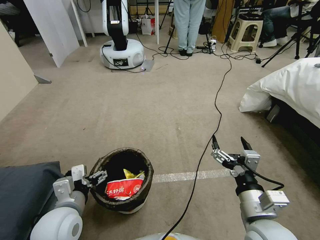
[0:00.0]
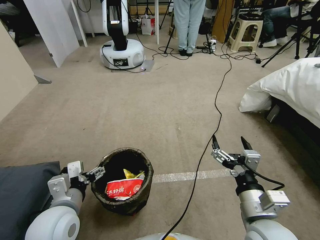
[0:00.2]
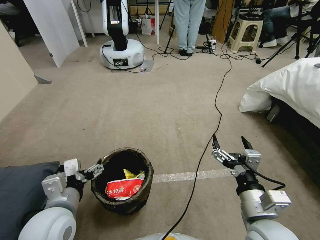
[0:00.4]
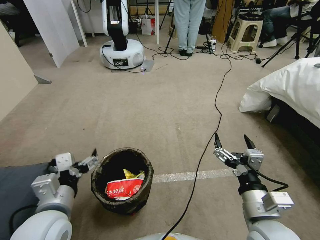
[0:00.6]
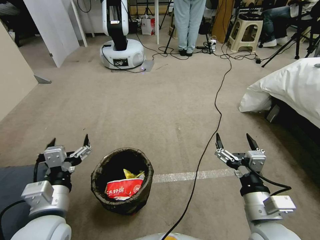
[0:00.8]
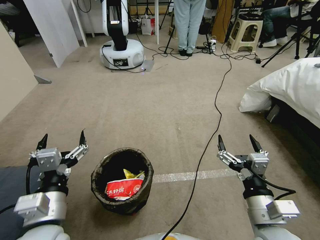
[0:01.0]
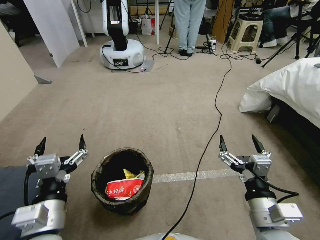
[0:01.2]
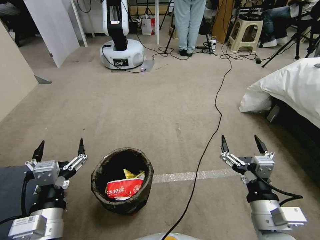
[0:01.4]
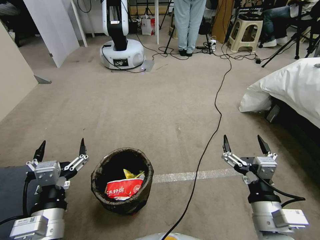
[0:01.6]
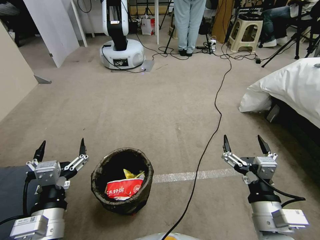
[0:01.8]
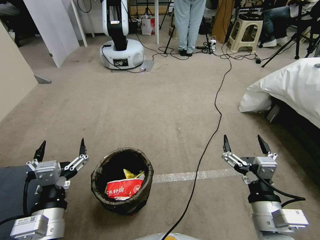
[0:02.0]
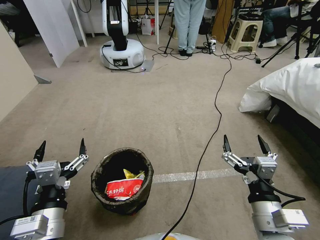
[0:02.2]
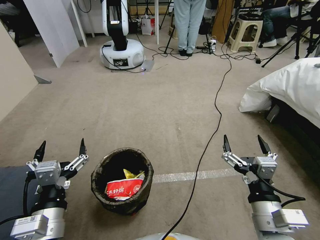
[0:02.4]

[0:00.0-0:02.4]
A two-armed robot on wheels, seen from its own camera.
Task of the whole recording: Pick up the trash bin, then pick up the garbage from the floor and place it into the trash bin.
0:00.0 to 0:01.2: The left gripper is displaced backward by approximately 5 cm.
0:01.2 to 0:02.4: There are only small adjustments of the grippers.

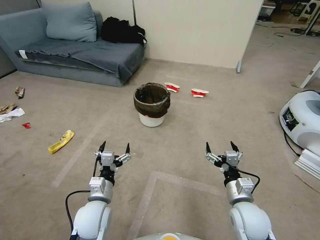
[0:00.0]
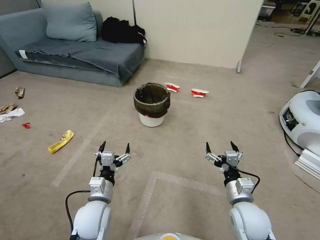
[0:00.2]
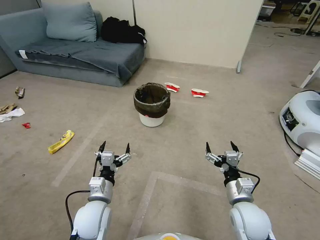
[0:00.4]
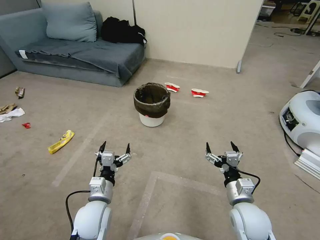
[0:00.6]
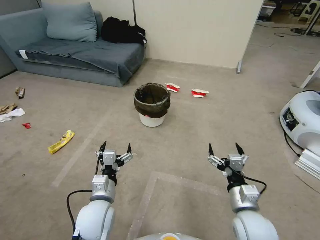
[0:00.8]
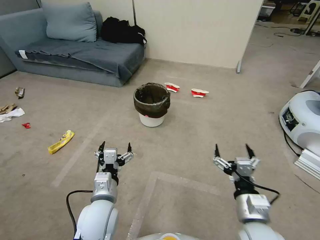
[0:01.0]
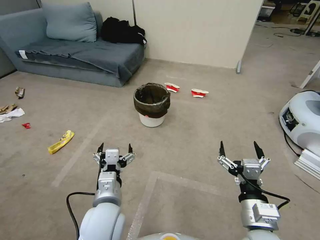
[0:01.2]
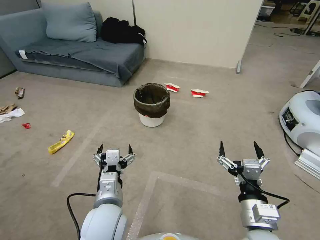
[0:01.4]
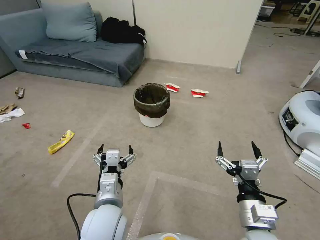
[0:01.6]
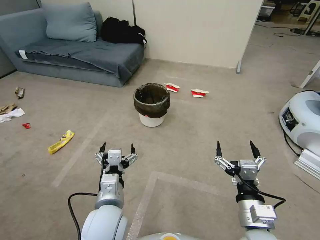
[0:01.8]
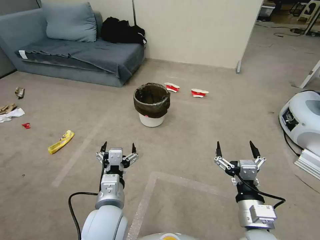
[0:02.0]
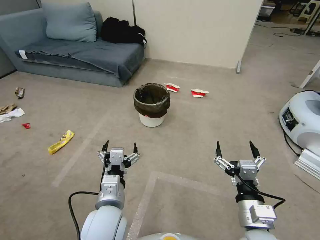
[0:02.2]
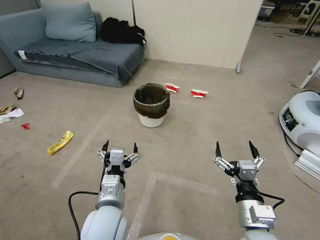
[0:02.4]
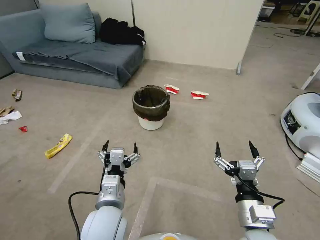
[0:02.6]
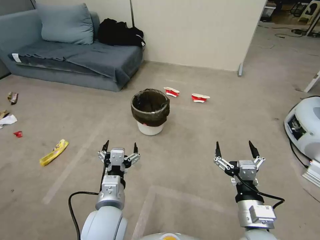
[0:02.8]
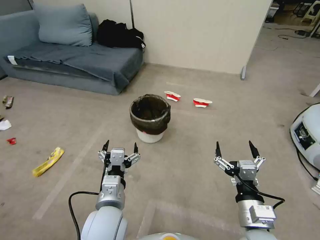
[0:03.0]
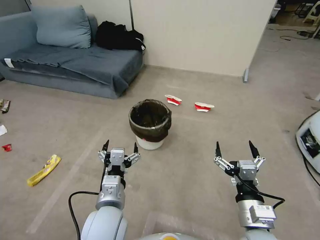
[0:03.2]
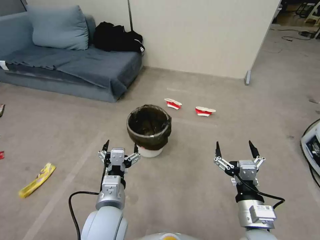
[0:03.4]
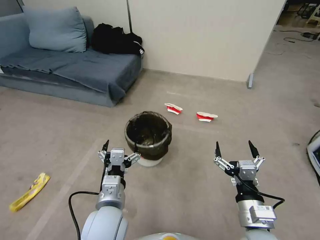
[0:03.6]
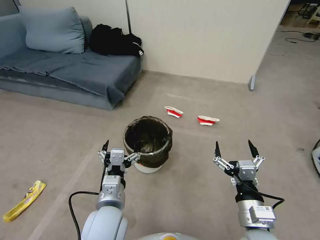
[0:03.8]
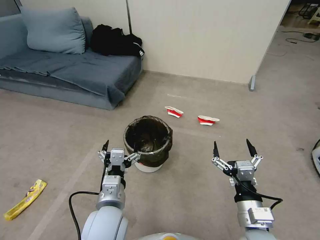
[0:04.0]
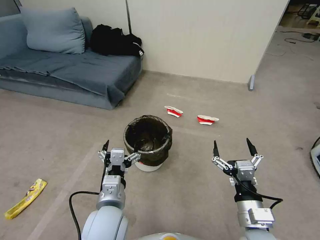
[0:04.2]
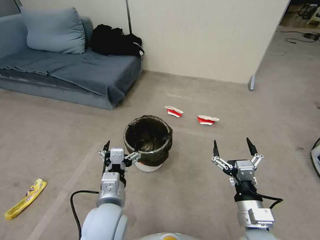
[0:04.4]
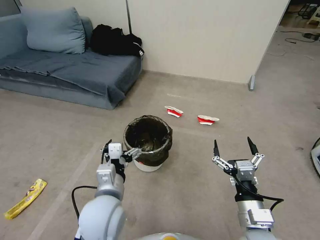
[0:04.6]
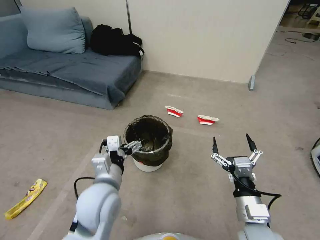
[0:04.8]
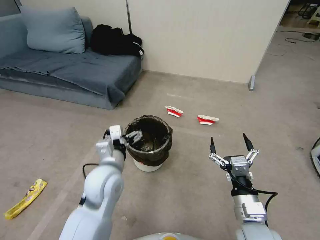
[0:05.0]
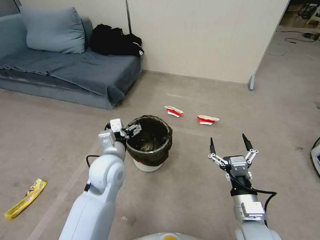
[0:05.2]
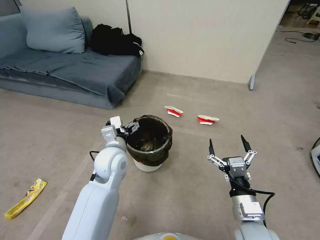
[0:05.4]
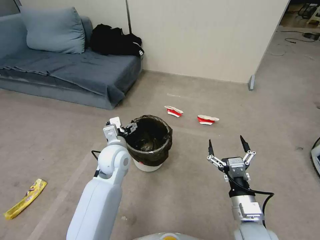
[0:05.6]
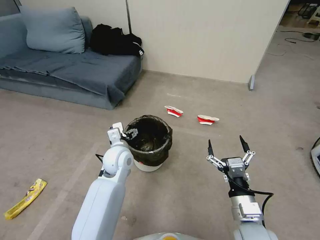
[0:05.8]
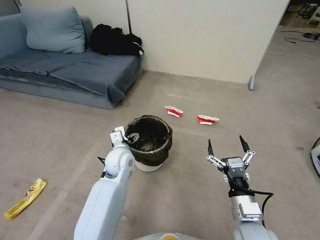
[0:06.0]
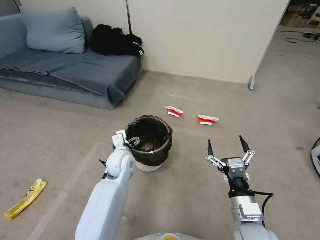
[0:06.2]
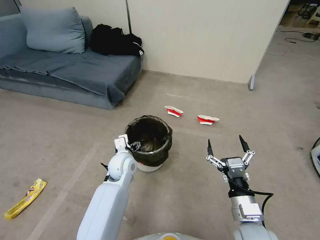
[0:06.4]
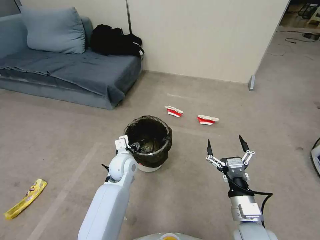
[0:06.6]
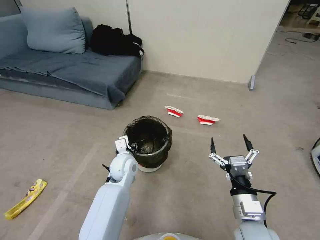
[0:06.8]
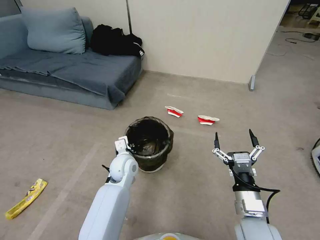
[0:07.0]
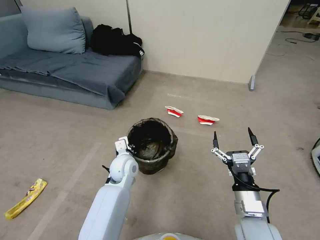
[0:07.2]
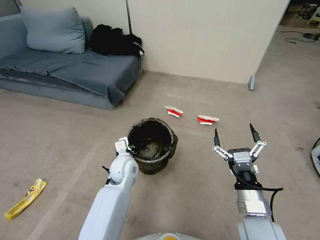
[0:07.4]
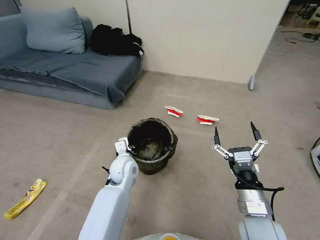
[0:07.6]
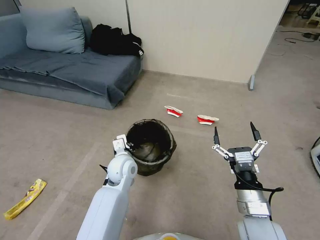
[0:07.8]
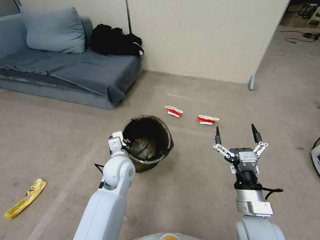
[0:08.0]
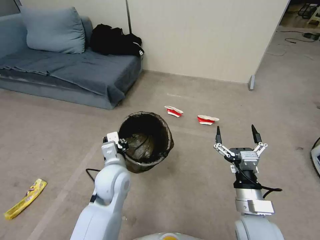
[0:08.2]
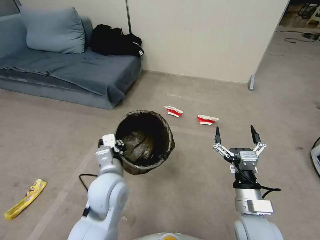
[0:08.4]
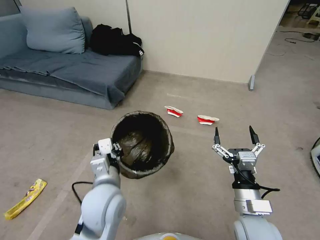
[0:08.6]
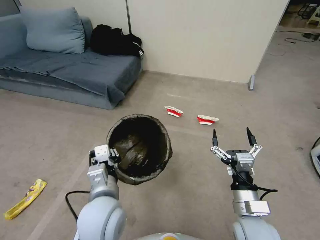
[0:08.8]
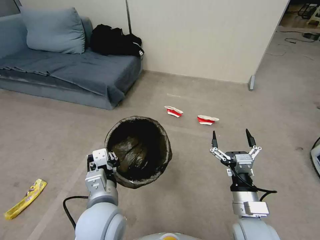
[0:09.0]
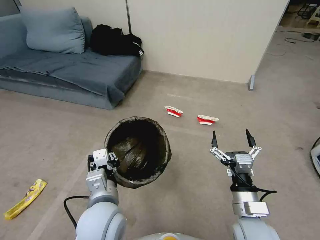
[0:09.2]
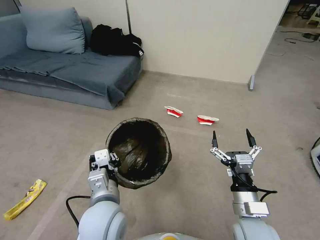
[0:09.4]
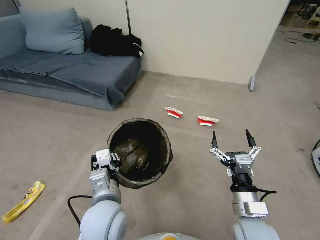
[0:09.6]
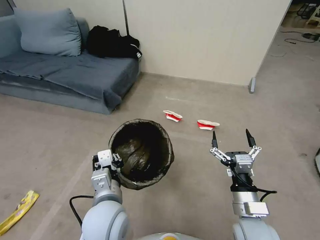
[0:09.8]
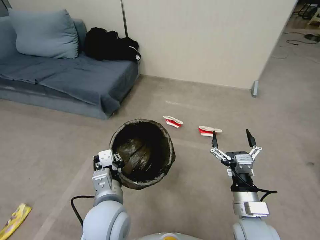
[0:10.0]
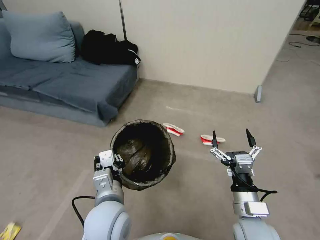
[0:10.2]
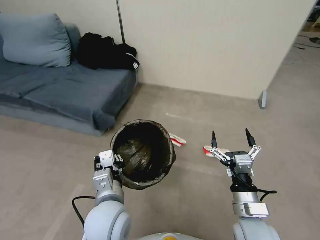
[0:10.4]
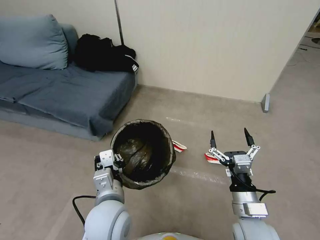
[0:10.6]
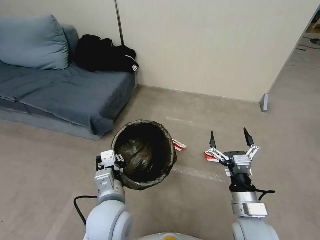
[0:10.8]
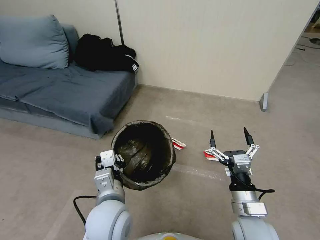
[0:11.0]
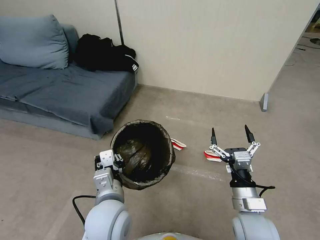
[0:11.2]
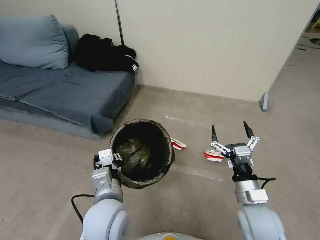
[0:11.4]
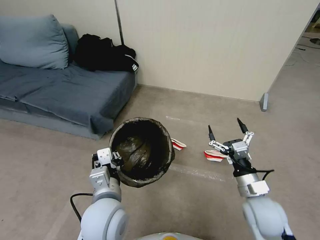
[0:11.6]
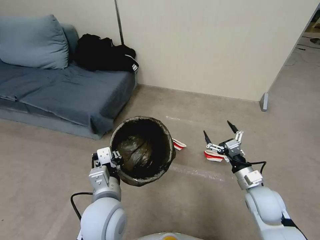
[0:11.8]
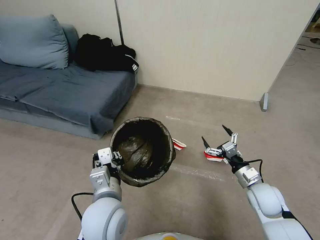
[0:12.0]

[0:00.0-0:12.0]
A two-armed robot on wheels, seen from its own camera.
Task of the whole recording: Pick up the trash bin, then pick up the garbage from the floor and place it into the trash bin.
0:01.6 to 0:03.0: There are only small adjustments of the grippers.
0:04.4 to 0:06.0: The left gripper moves forward, some 20 cm.
0:06.0 to 0:07.6: The left gripper closes.
0:07.6 to 0:09.0: The left gripper goes roughly 20 cm backward and upward.
0:10.4 to 0:12.0: The right gripper shifts some 15 cm forward, to the right and downward.

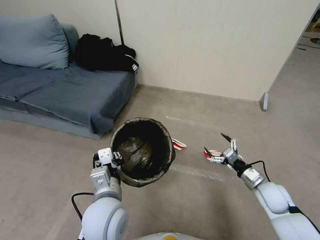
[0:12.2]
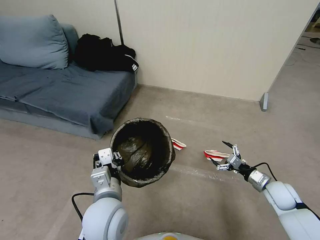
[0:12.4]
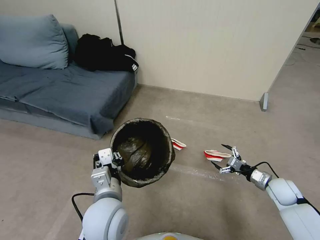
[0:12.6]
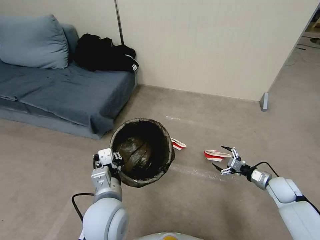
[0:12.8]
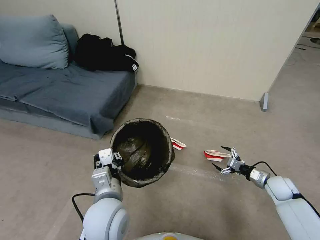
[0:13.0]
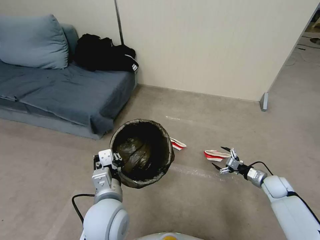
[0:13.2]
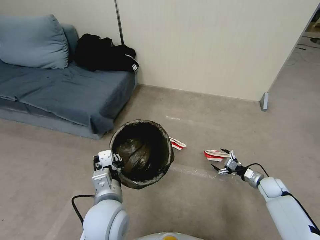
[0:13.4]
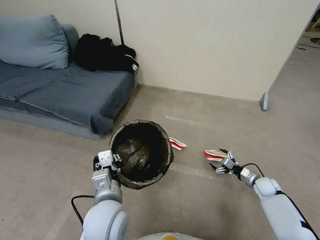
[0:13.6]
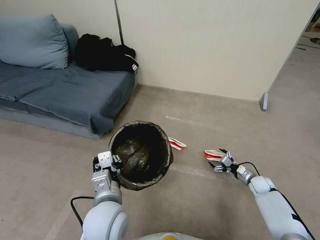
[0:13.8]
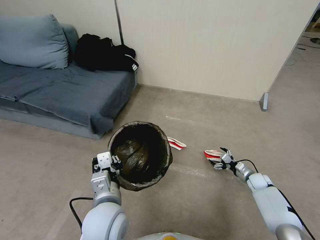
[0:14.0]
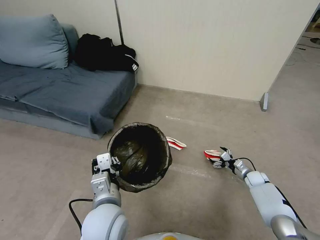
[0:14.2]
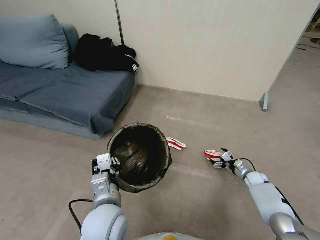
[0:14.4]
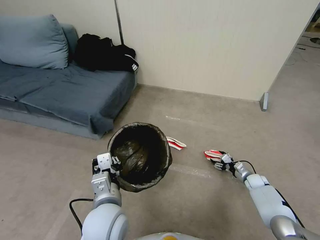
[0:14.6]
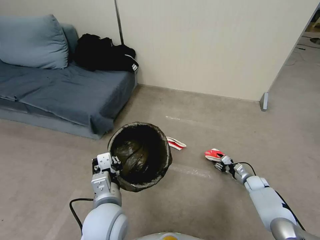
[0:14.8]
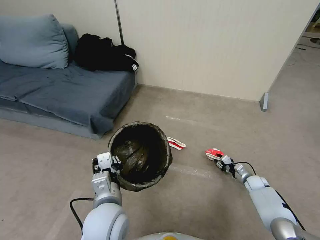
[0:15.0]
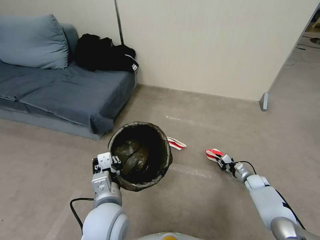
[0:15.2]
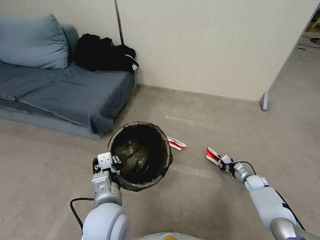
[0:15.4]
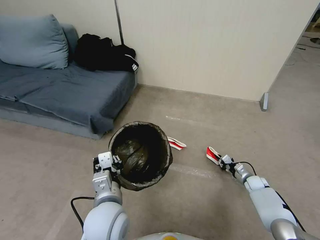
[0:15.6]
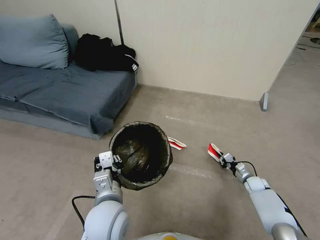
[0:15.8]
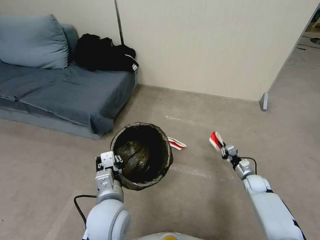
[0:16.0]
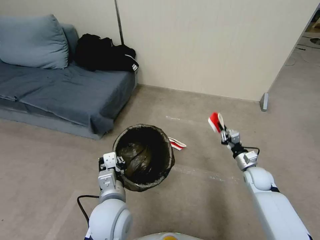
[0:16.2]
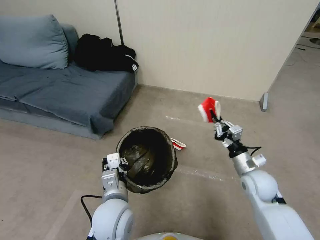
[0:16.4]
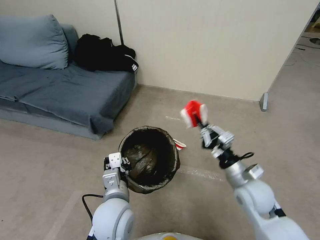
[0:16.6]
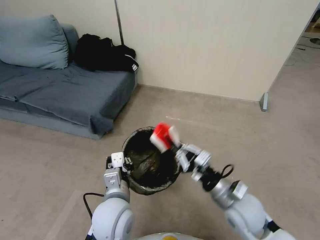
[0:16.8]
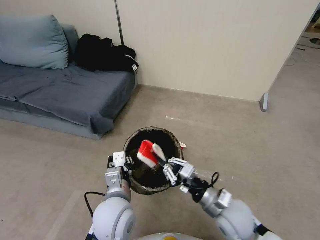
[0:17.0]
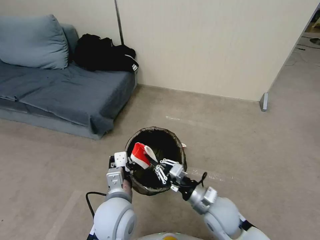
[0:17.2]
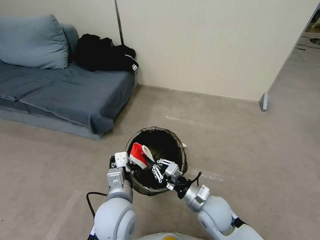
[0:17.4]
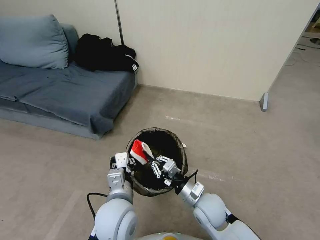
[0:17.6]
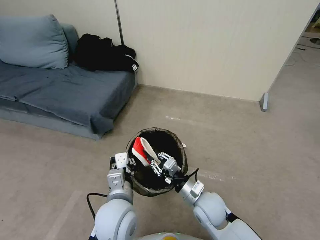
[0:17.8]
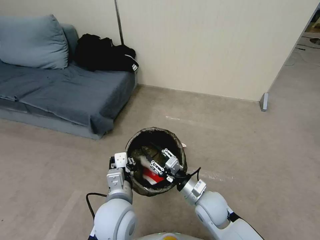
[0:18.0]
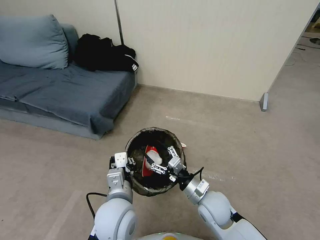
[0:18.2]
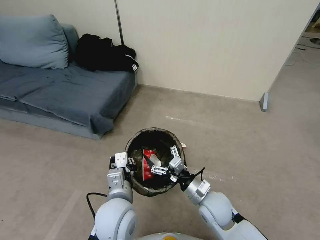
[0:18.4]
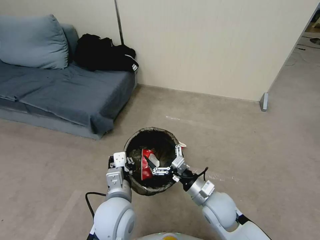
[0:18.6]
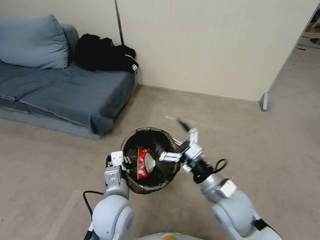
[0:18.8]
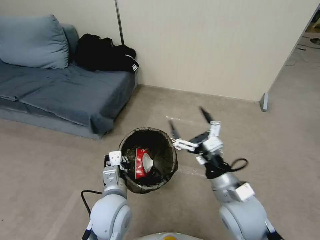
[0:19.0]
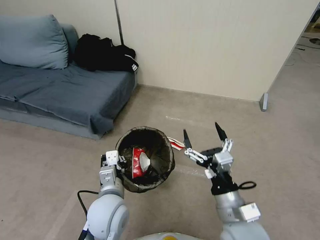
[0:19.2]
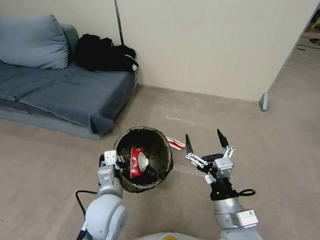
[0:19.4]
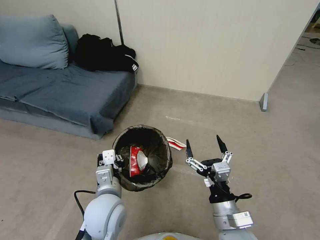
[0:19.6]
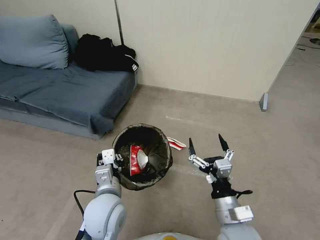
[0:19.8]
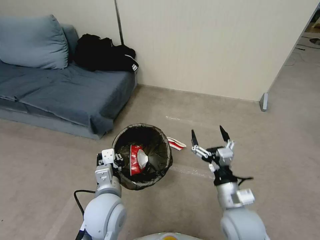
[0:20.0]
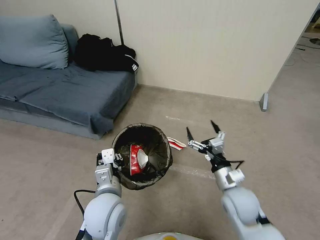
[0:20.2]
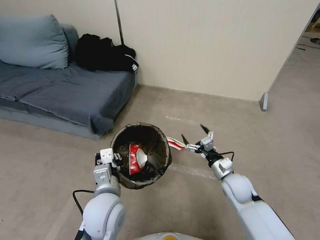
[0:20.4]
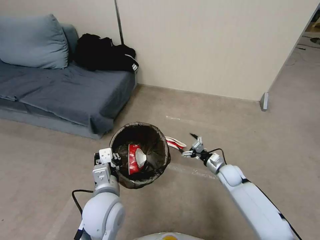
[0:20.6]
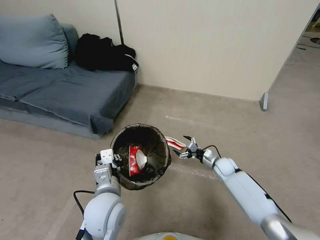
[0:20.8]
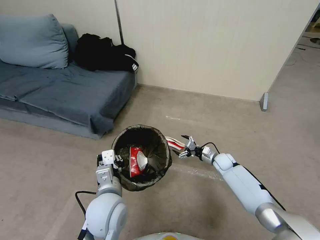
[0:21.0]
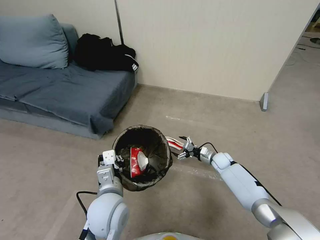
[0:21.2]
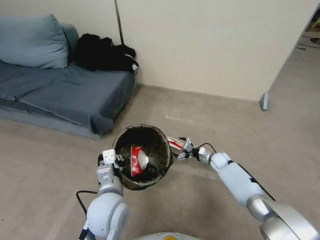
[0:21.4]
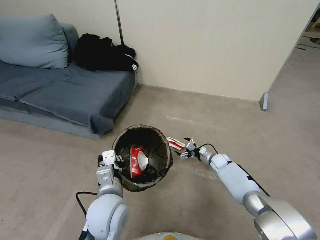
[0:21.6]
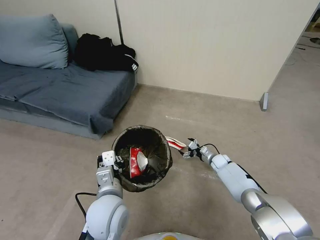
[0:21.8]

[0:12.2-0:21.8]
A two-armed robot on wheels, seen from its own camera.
Task of the whole recording: Pick up the trash bin, then pick up the garbage from the floor and place it into the trash bin.
0:12.2 to 0:13.8: The right gripper travels downward, forward and to the right by about 15 cm.
0:13.8 to 0:15.4: The right gripper closes up.
0:15.4 to 0:17.0: The right gripper is displaced to the left, upward and backward by roughly 40 cm.
0:17.0 to 0:18.6: The right gripper opens.
0:18.6 to 0:20.2: The right gripper is displaced to the right by approximately 5 cm, and reaches approximately 10 cm backward, then returns.
0:20.2 to 0:21.8: The right gripper heads forward and downward, covering about 30 cm.
